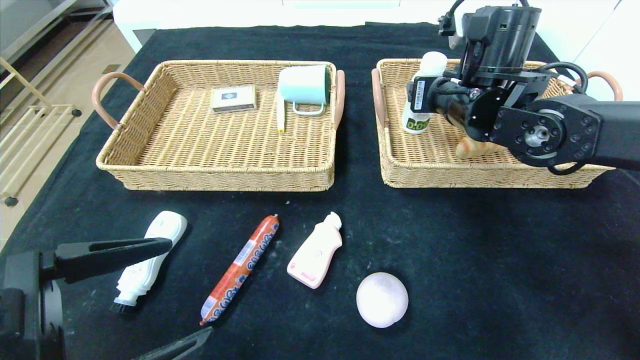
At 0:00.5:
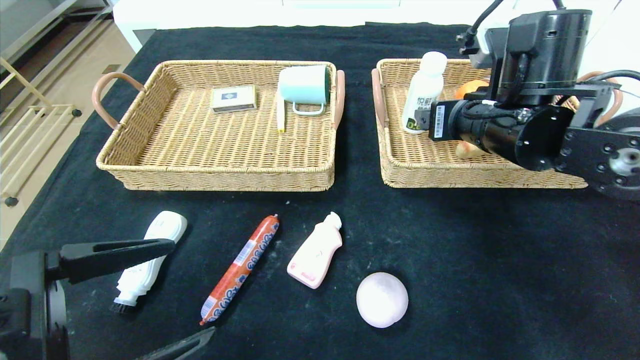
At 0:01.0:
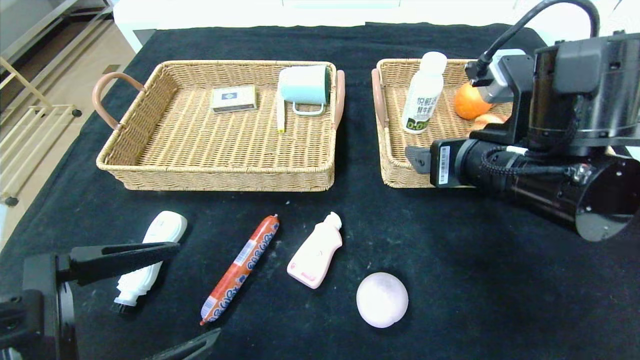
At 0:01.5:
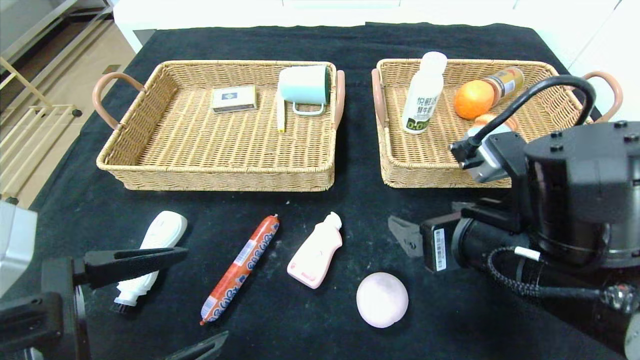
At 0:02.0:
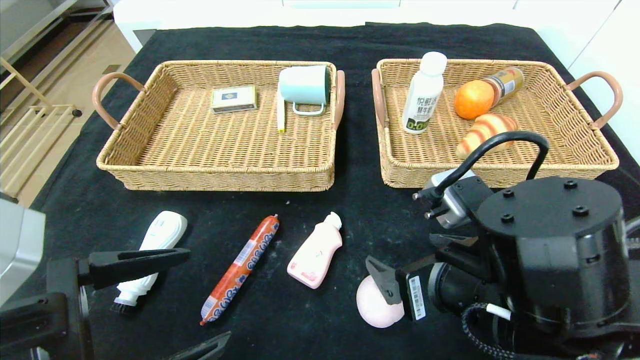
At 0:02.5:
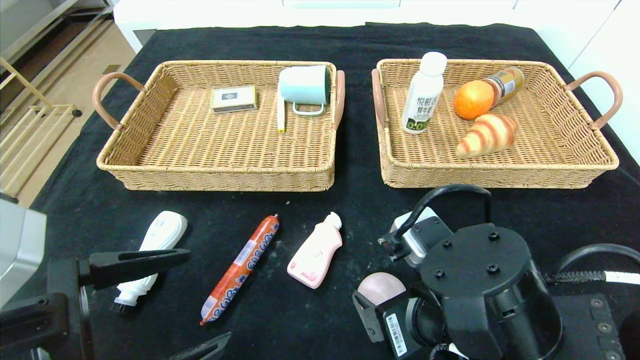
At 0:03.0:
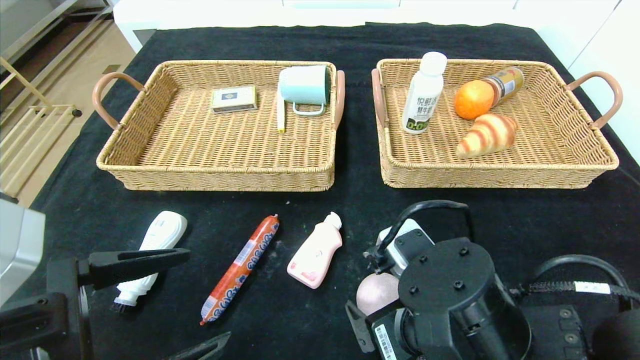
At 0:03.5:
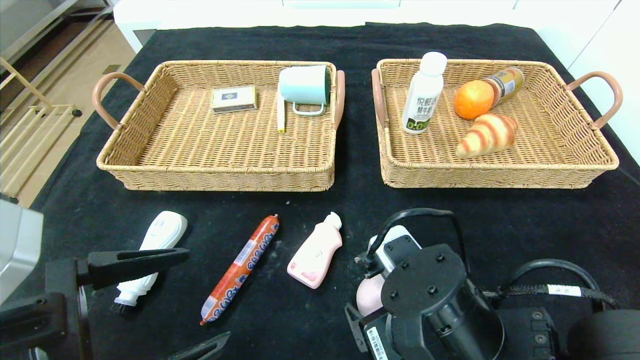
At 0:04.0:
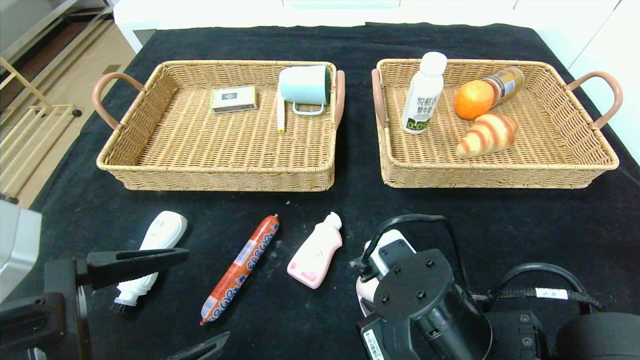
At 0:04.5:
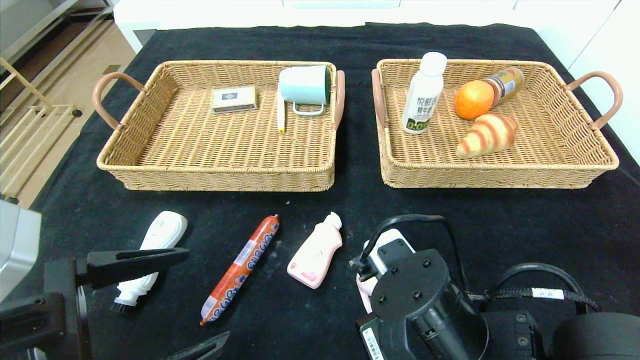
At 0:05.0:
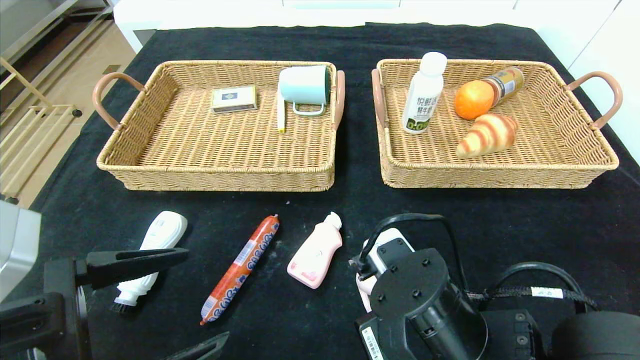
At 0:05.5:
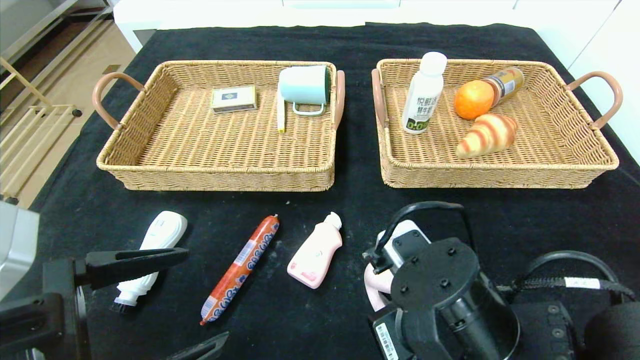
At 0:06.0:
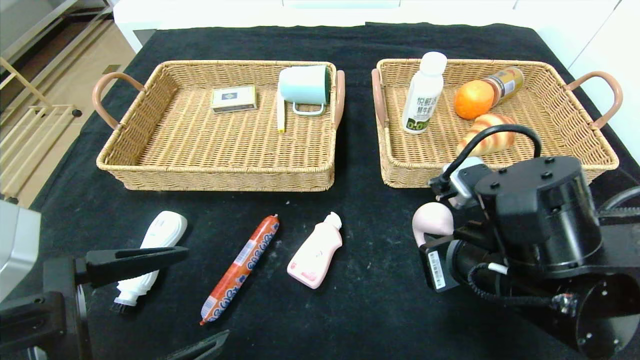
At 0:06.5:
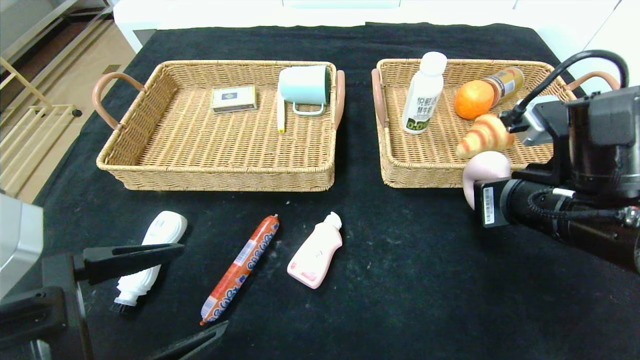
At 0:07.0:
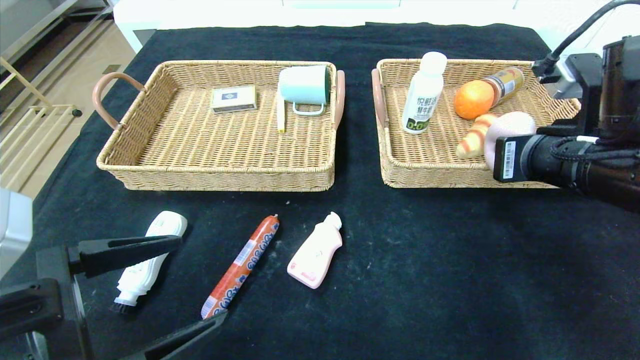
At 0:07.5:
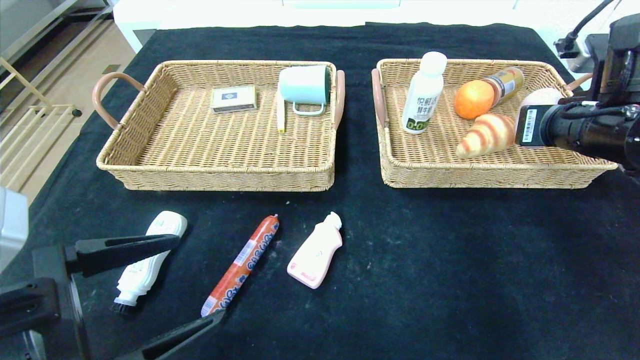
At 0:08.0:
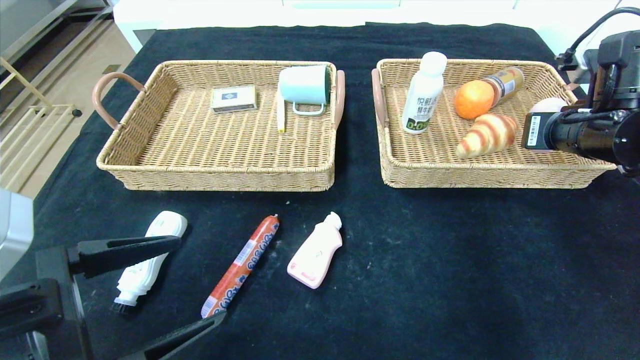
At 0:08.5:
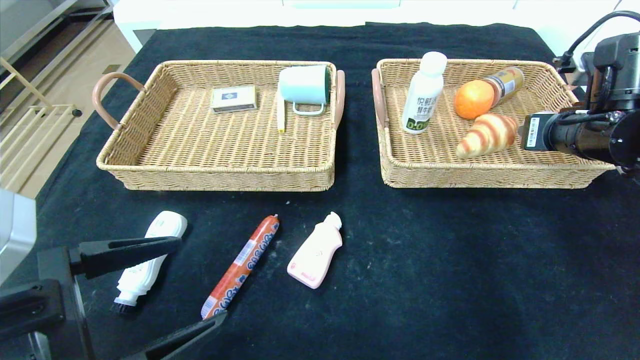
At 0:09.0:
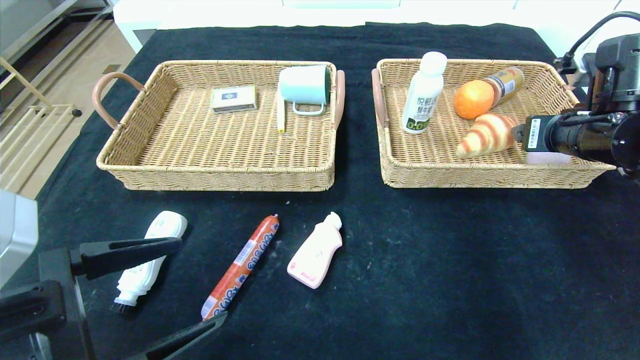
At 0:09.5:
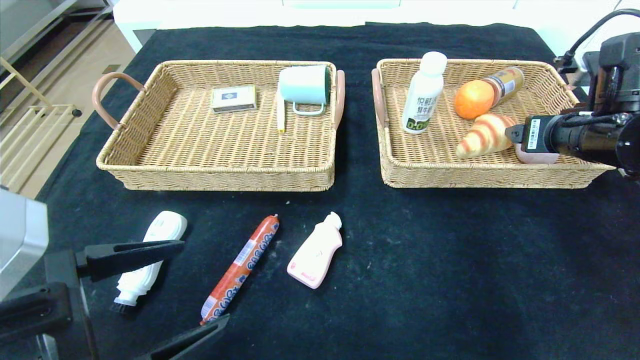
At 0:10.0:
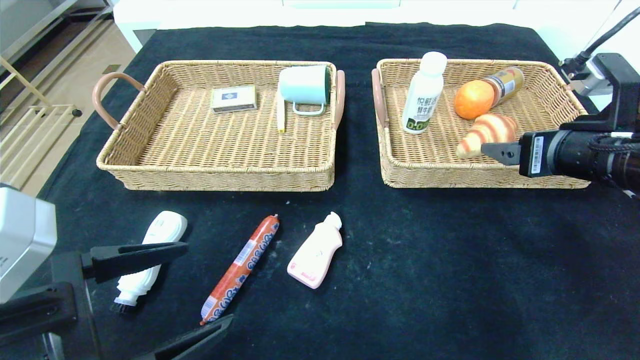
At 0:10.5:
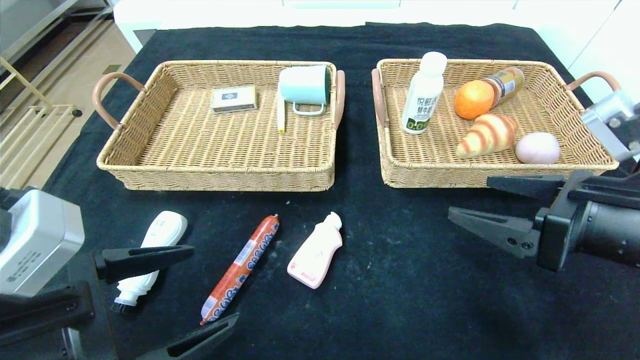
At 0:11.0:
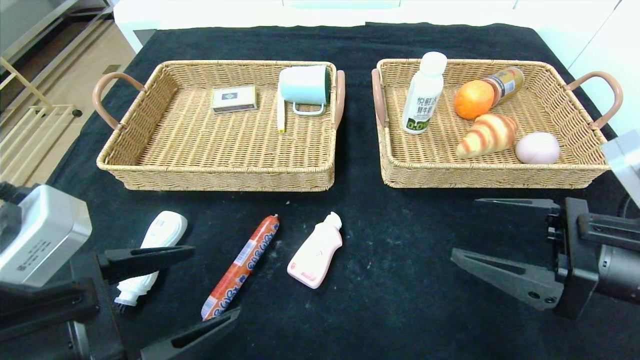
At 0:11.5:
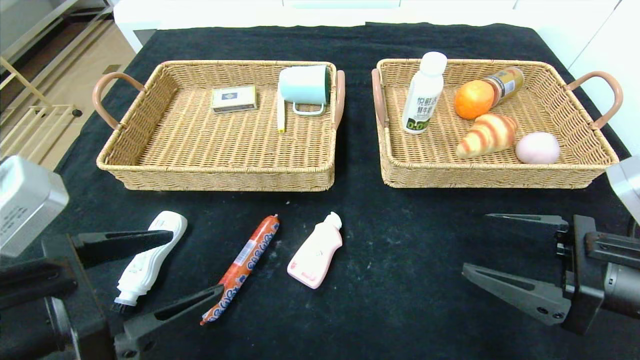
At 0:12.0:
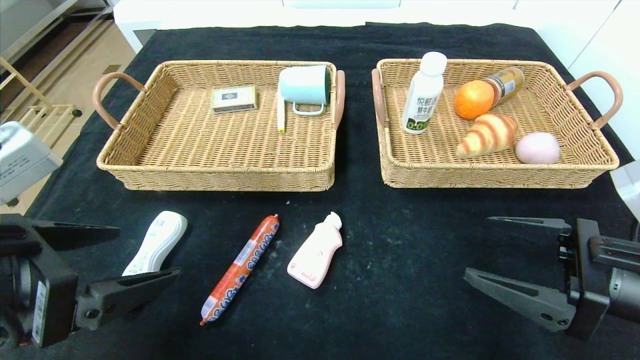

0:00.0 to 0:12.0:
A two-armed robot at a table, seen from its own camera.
Step, 0:00.5 to 0:09.0: Grasp the peach and put it in the right basket.
0:00.0 to 0:02.0: The right gripper moves backward and downward, approximately 25 cm.
0:02.0 to 0:04.0: The right gripper shifts some 5 cm downward, and closes up.
0:04.0 to 0:06.0: The right gripper travels to the right and upward by roughly 10 cm.
0:06.0 to 0:08.0: The right gripper is displaced to the right, forward and upward by some 20 cm.
0:08.0 to 0:10.0: The right gripper travels backward by about 5 cm, and opens its fingers.
0:10.0 to 0:12.0: The left gripper shifts by approximately 5 cm, while the right gripper heads backward and downward, covering approximately 10 cm.

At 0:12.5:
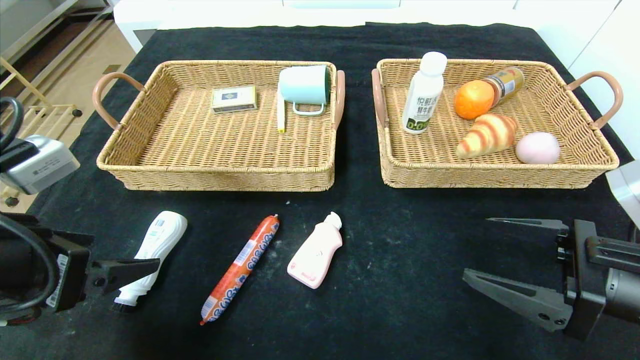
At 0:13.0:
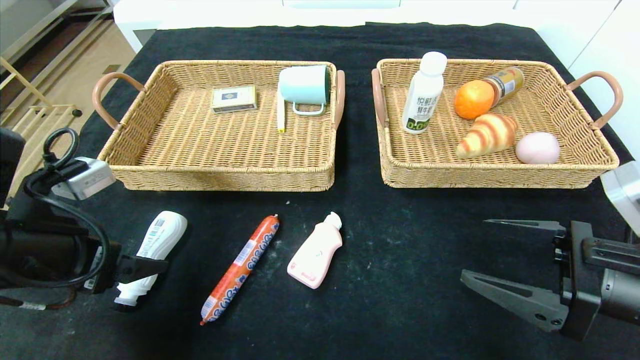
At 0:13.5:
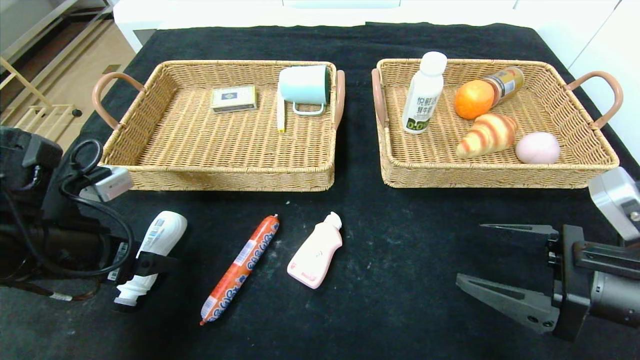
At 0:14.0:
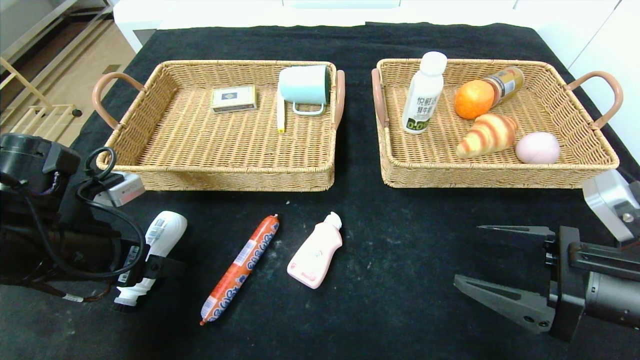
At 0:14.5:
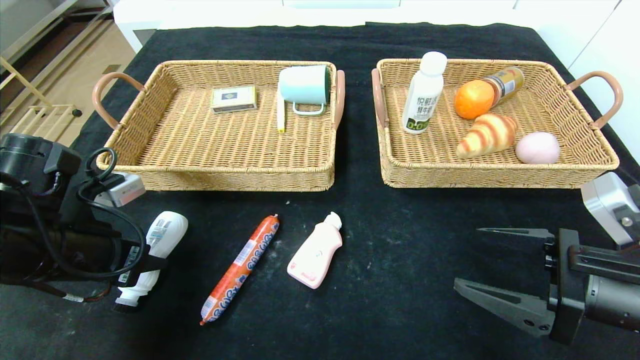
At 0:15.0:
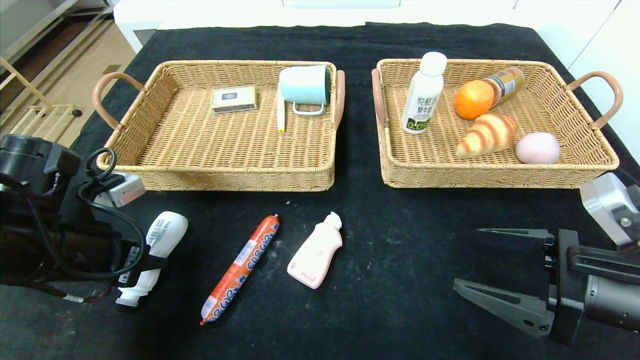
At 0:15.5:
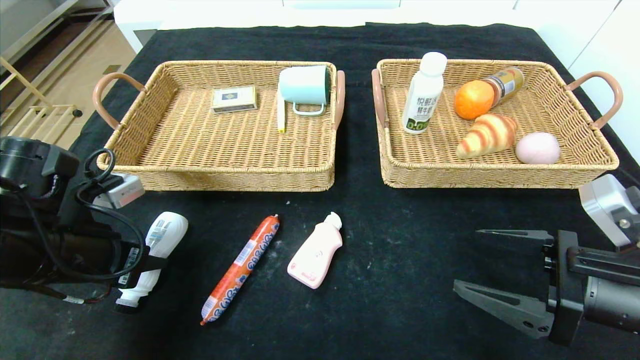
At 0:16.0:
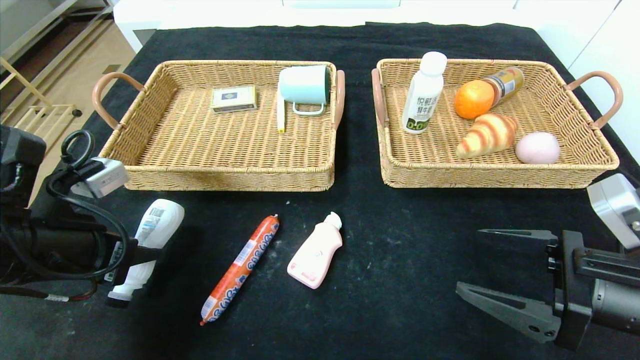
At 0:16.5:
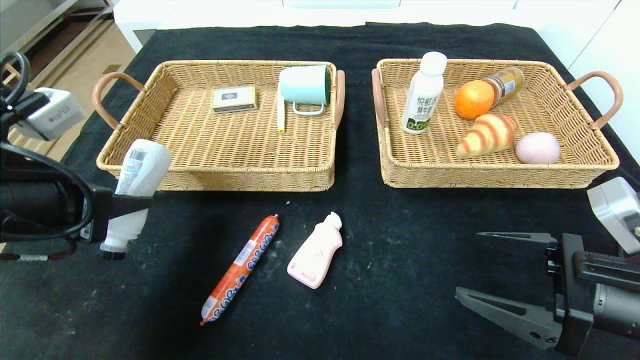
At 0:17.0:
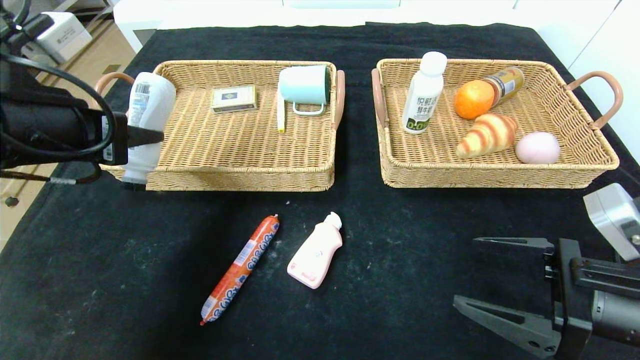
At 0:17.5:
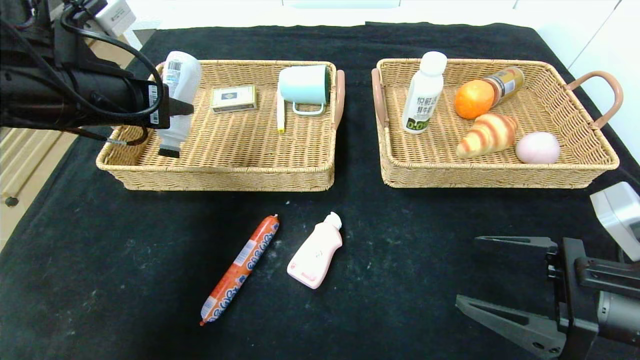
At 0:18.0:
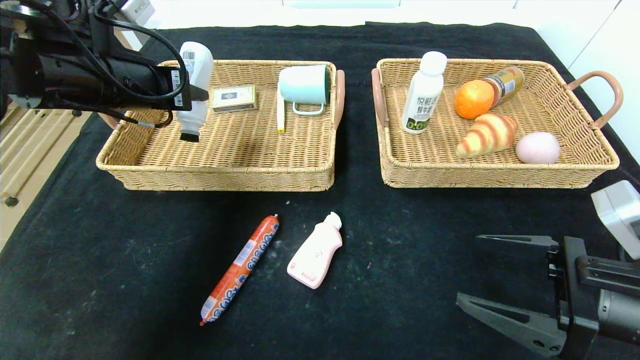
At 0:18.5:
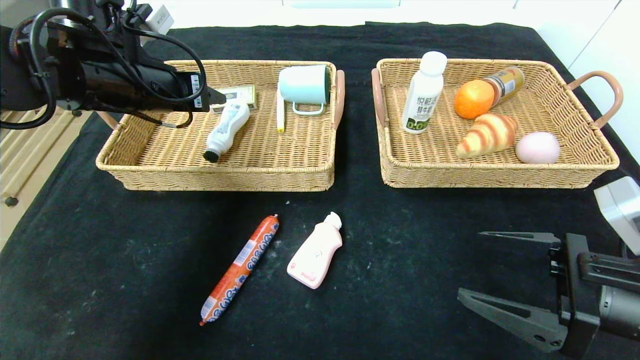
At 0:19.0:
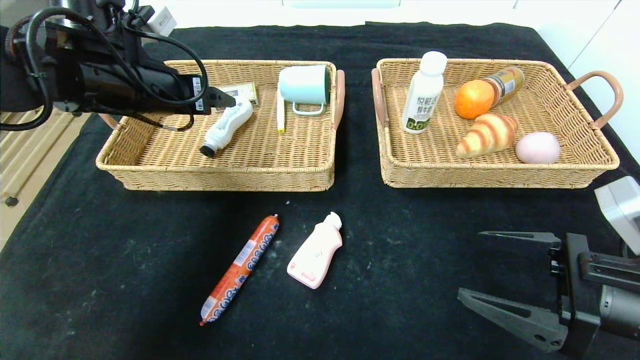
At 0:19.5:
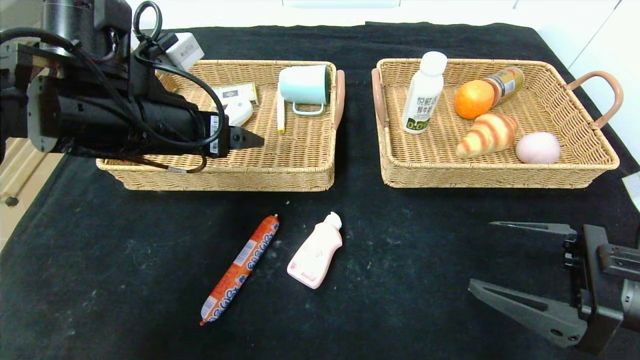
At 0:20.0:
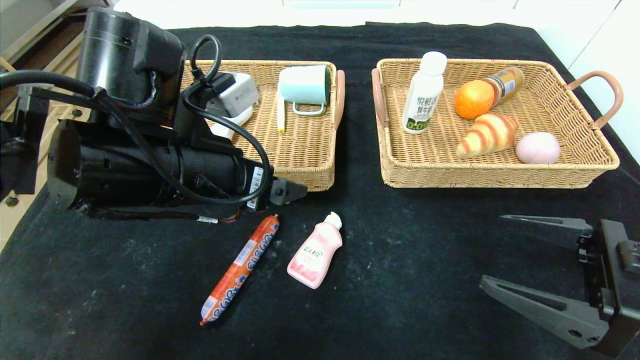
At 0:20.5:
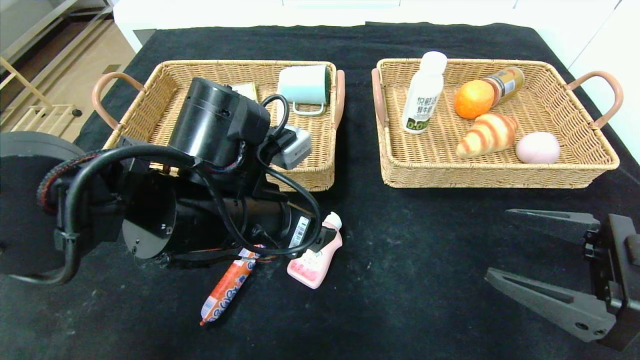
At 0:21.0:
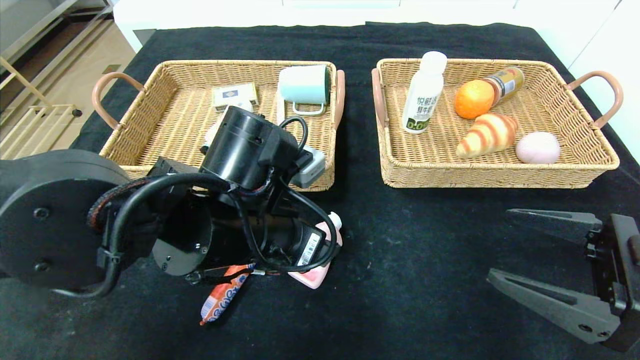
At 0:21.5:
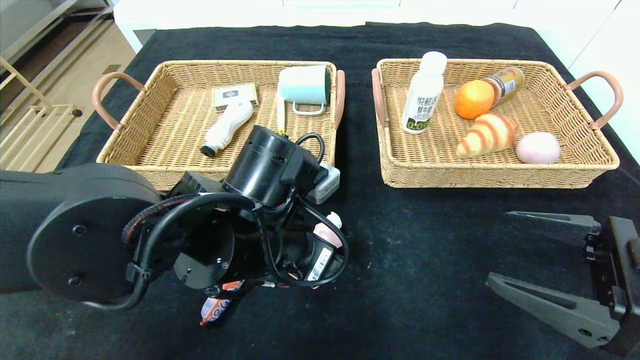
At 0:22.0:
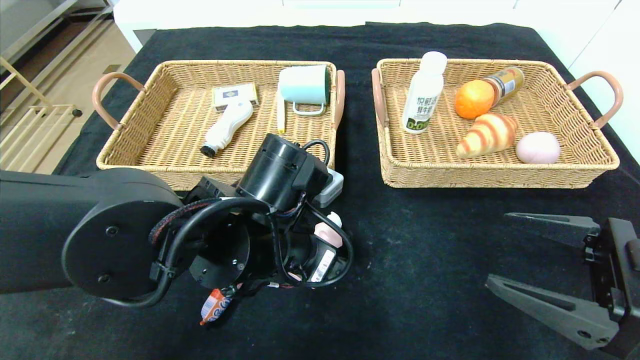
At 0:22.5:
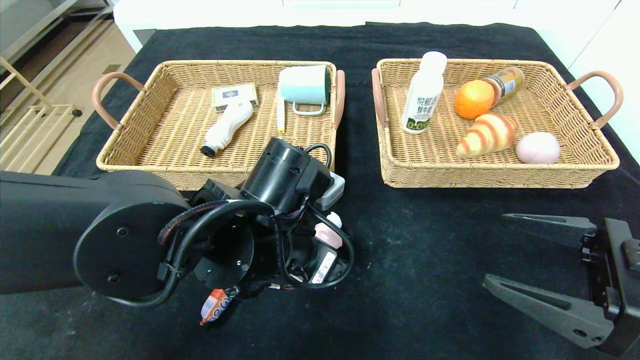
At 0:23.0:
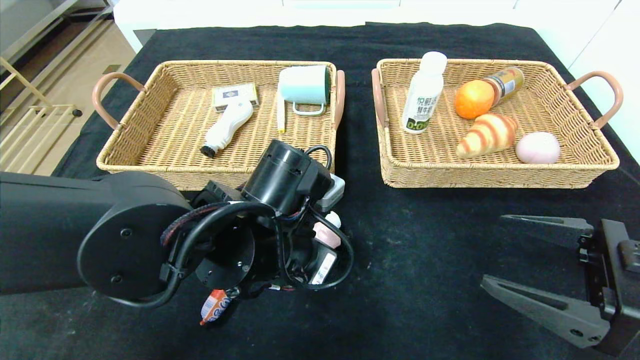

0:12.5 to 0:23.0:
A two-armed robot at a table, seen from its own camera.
Step, 0:12.5 to 0:18.5: Grasp the washing liquid and put it in the left basket.
0:12.5 to 0:14.5: The left gripper heads forward and downward, covering some 10 cm, and closes its fingers.
0:14.5 to 0:16.5: The left gripper shifts about 5 cm upward.
0:16.5 to 0:19.0: The left gripper is displaced forward by about 15 cm, and opens.
0:19.0 to 0:21.0: The left gripper is displaced to the right, backward and downward by approximately 20 cm.
0:21.0 to 0:23.0: The left gripper closes.
